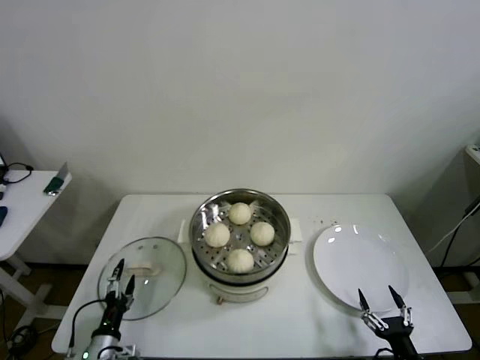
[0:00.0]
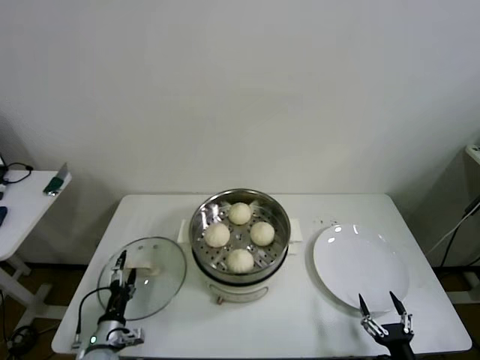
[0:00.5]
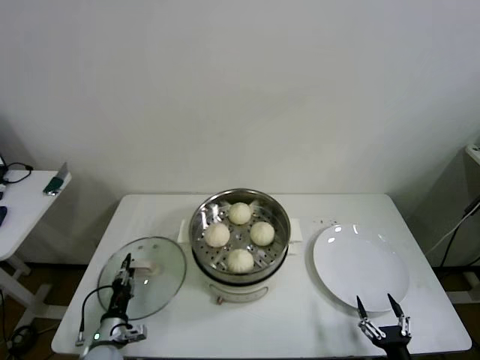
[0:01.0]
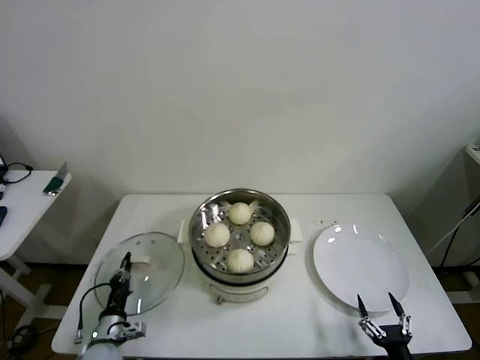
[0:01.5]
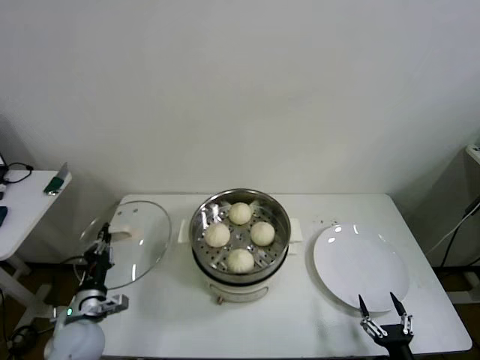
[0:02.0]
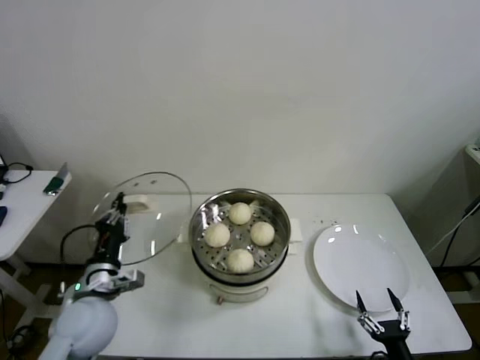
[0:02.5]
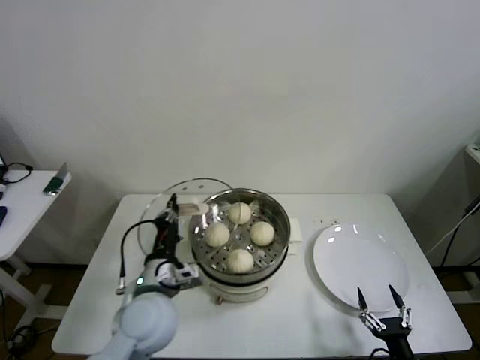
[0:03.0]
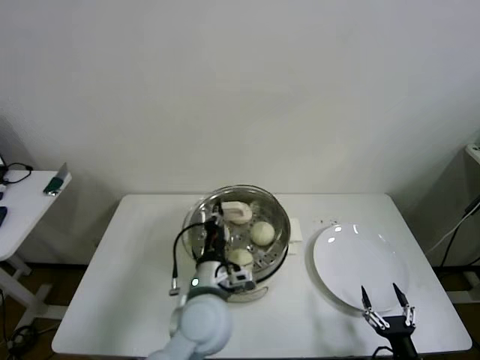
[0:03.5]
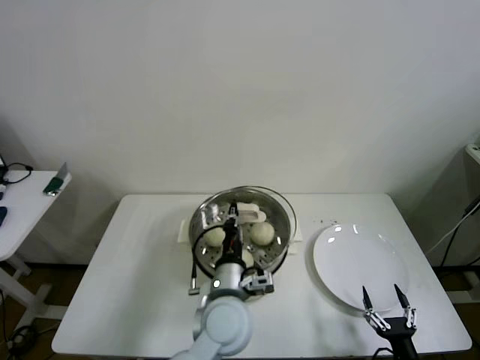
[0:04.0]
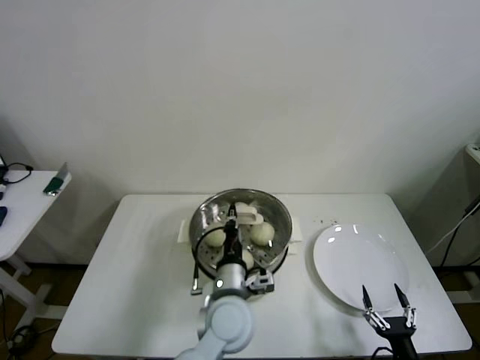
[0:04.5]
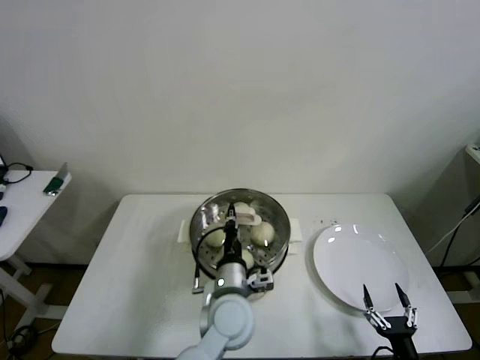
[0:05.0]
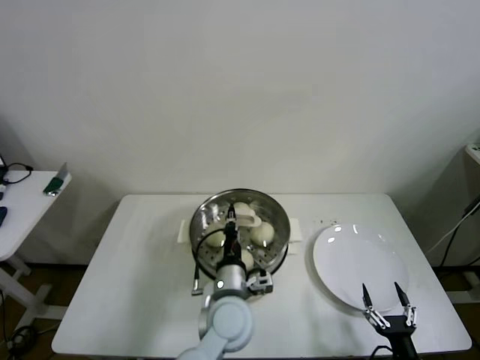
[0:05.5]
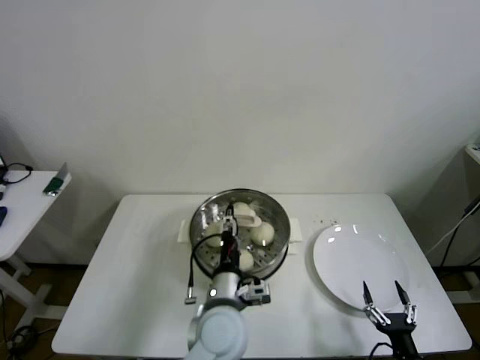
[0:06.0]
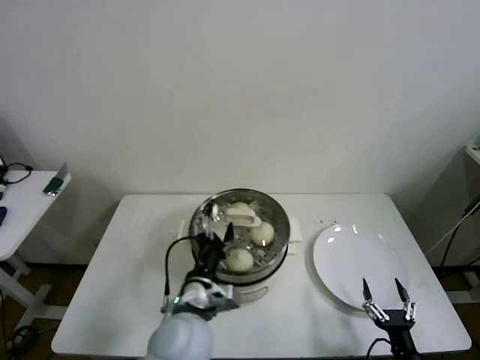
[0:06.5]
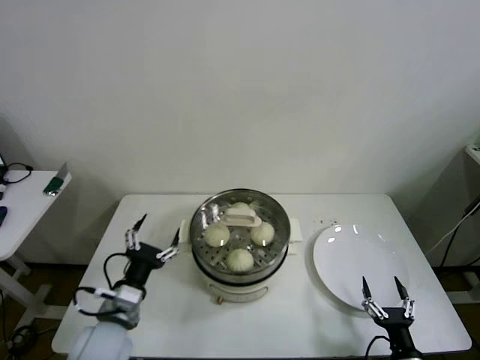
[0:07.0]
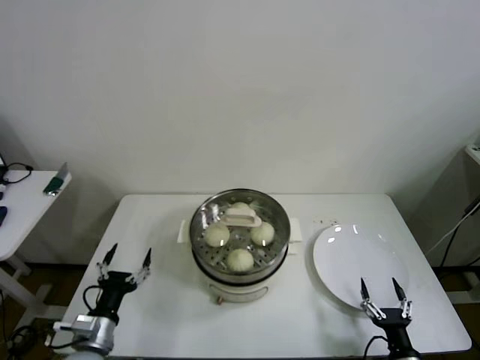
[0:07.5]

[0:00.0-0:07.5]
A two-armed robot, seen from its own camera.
Step, 0:01.5 to 0:06.5: Place the pot lid on the steamer with left gripper.
0:00.0 to 0:02.0: The left gripper travels upward and forward by approximately 10 cm, and closes up.
0:02.0 to 0:04.0: The left gripper travels to the right by some 30 cm.
0:04.0 to 0:05.5: The grippers make only small movements.
0:05.5 to 0:07.5: The left gripper is displaced to the left by approximately 30 cm, and opens.
